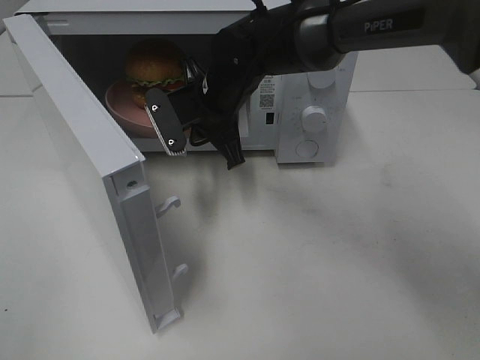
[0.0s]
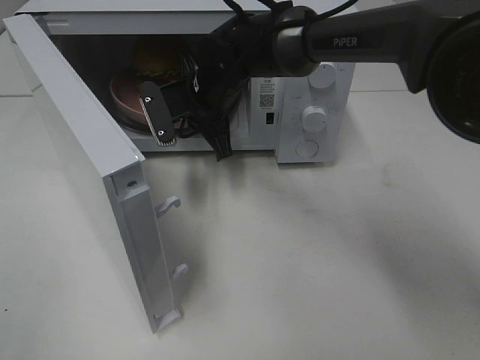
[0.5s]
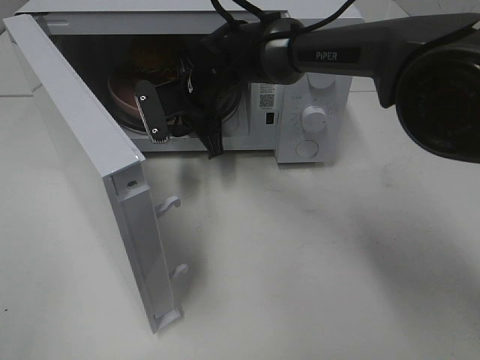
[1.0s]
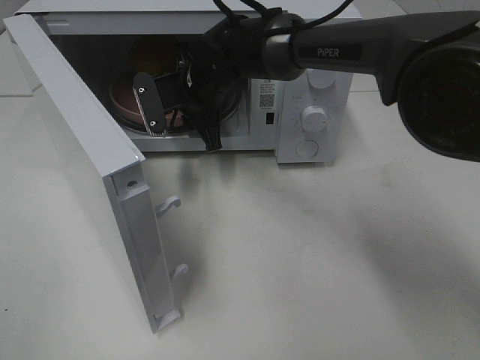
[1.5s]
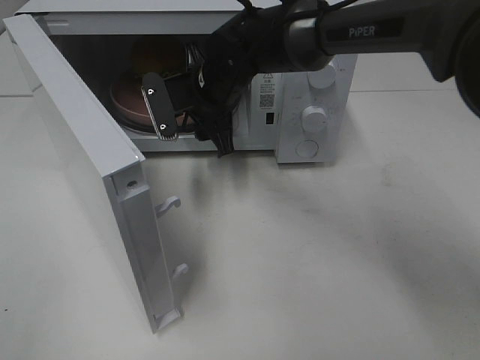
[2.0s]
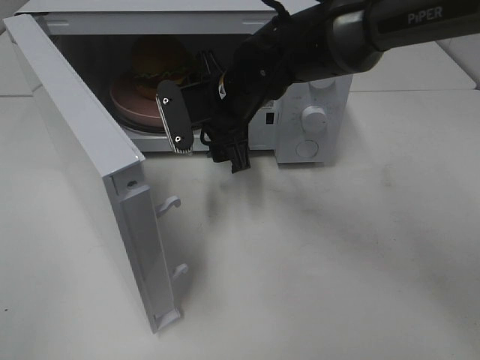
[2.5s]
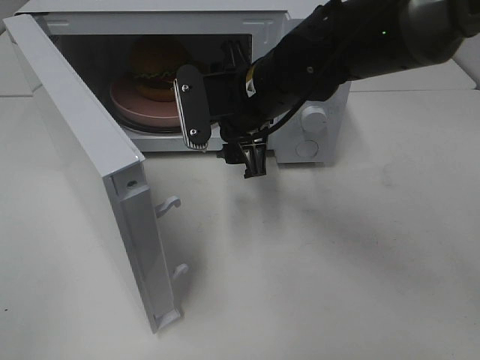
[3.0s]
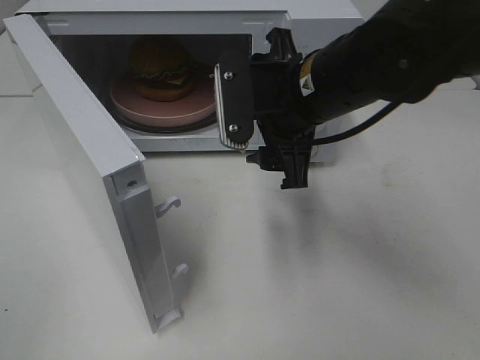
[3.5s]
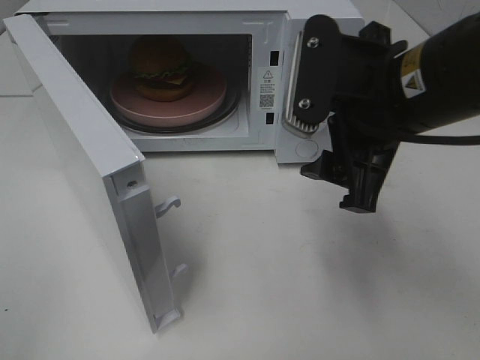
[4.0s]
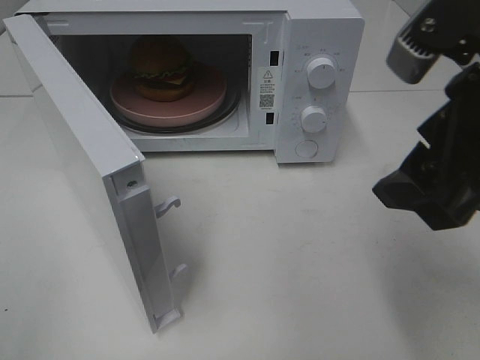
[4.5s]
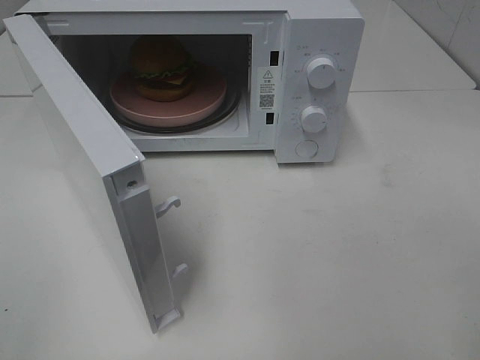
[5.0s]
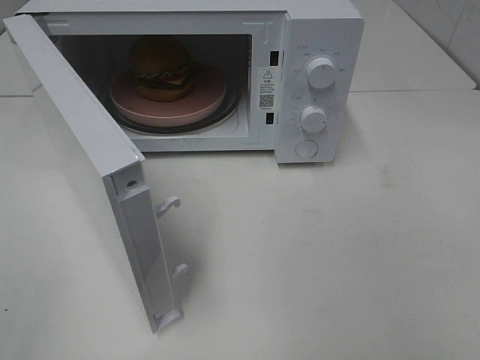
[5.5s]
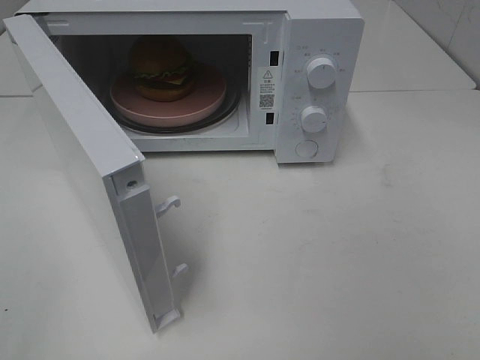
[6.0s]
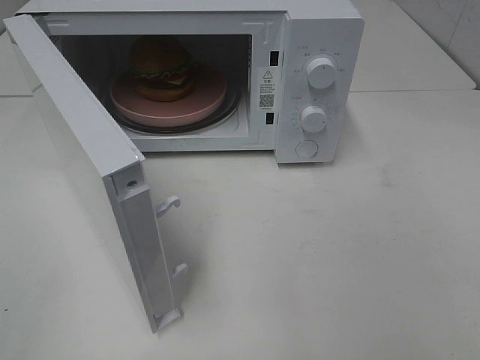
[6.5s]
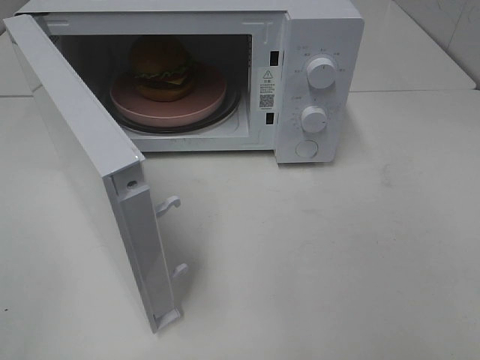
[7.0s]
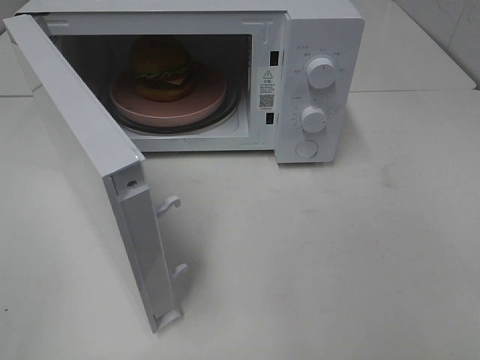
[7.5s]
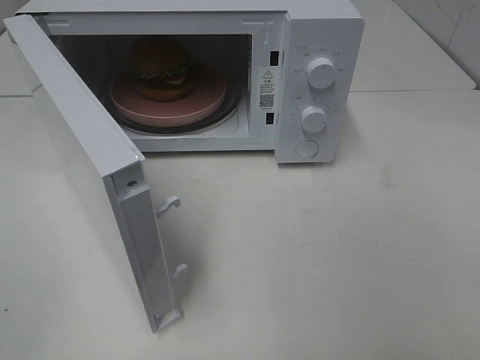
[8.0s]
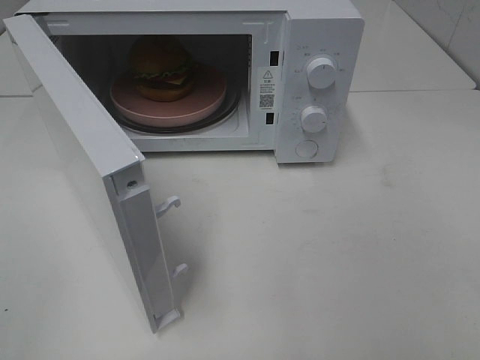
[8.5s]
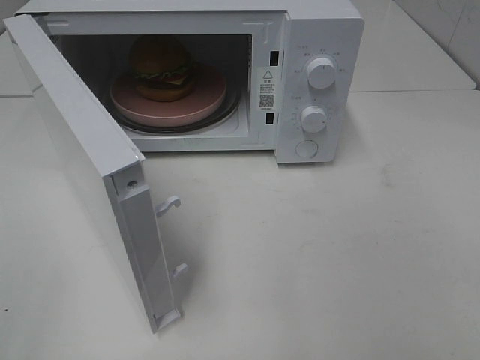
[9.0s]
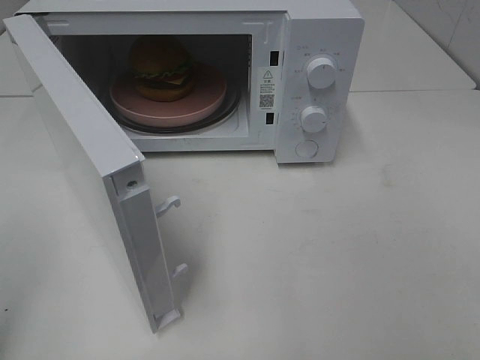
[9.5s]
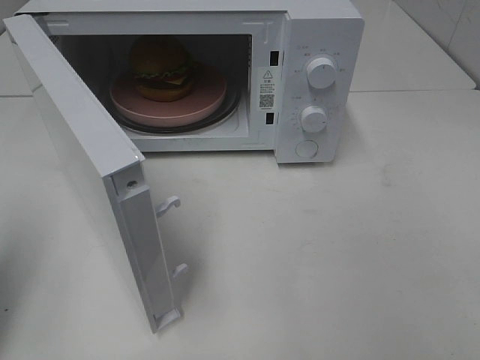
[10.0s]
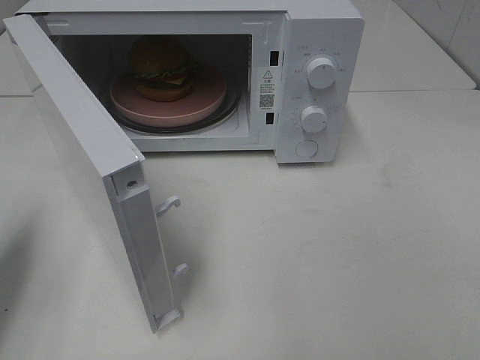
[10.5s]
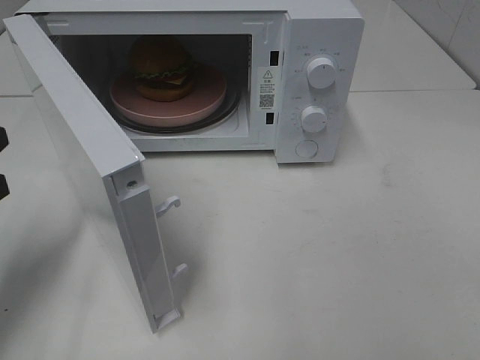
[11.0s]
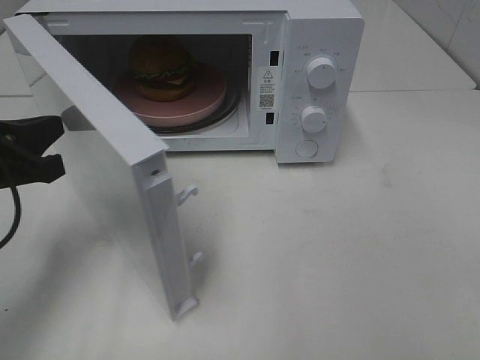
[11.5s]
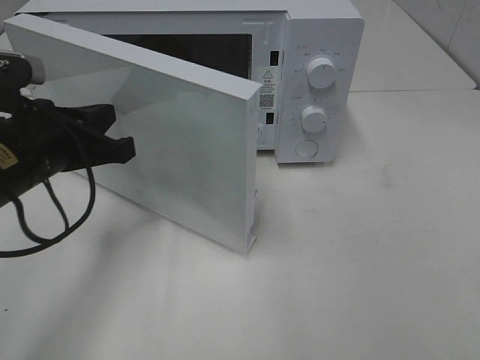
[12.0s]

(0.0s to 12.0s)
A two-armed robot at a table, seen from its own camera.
Task of the whole recording: Heat the burger.
Step, 0.0s - 2.0s: Right hand: place the plate in the microwave.
0.0s - 2.0s: The right gripper opens up.
2.0s - 4.0s: The right gripper travels backward, to the right and upward by approximately 25 cm.
4.0s - 6.0s: The right gripper moves backward and to the right, approximately 30 cm.
8.0s - 10.0s: The left gripper shifts about 15 cm forward, and closes.
10.0s - 12.0s: The left gripper is displaced to the right, forward and downward by about 20 cm.

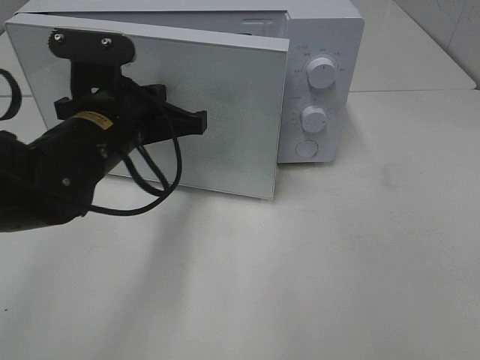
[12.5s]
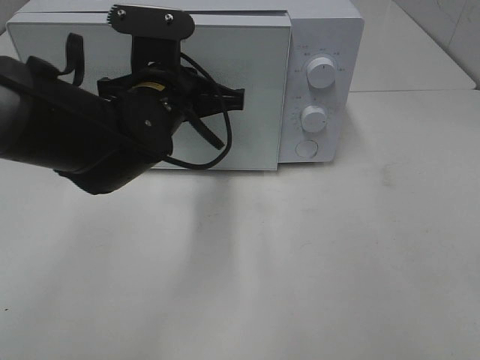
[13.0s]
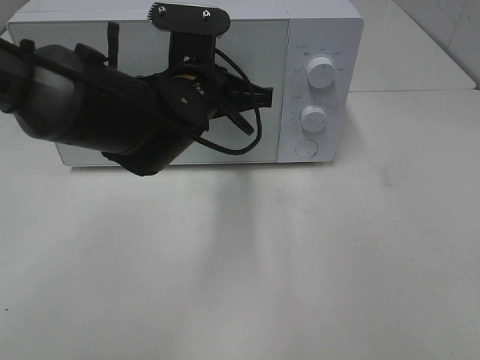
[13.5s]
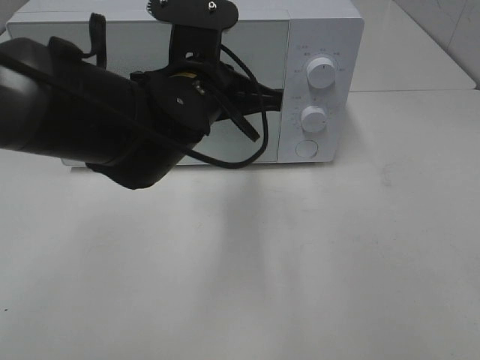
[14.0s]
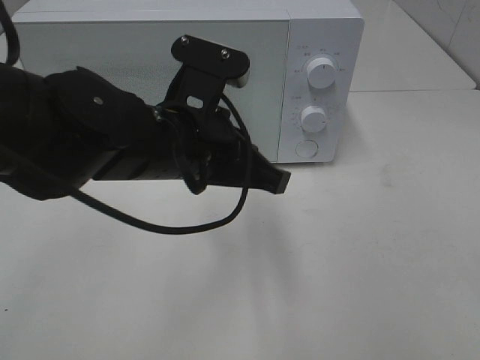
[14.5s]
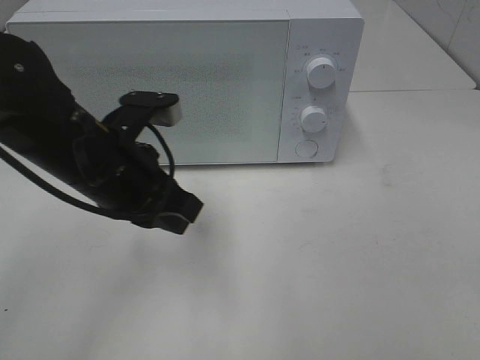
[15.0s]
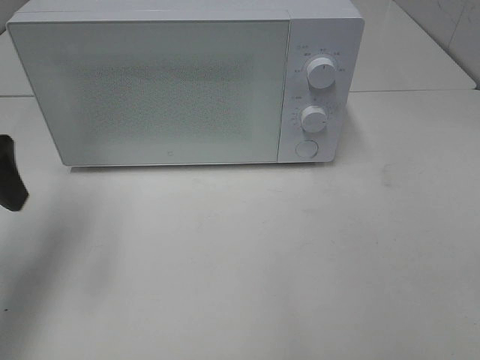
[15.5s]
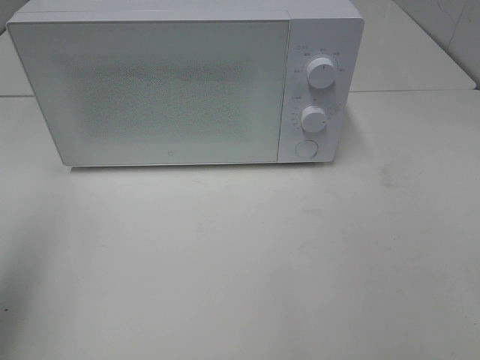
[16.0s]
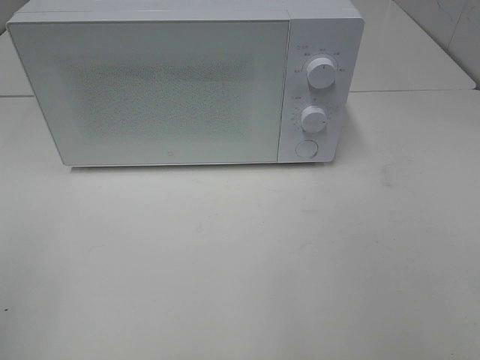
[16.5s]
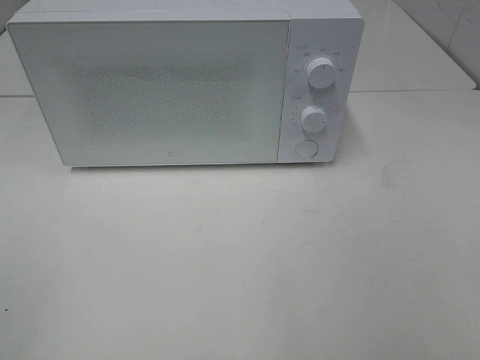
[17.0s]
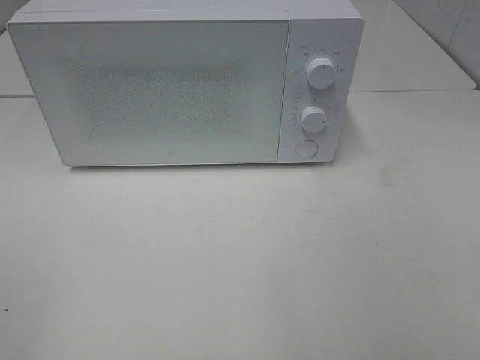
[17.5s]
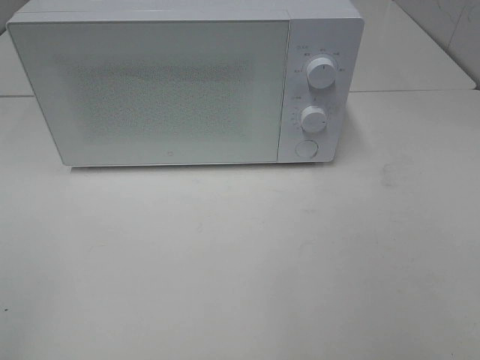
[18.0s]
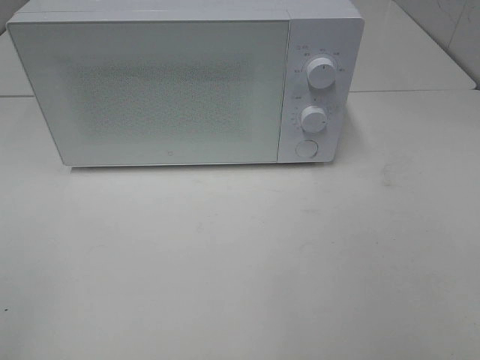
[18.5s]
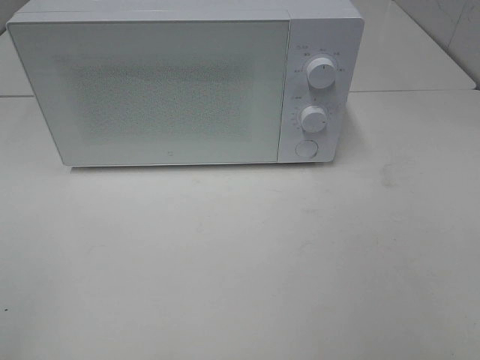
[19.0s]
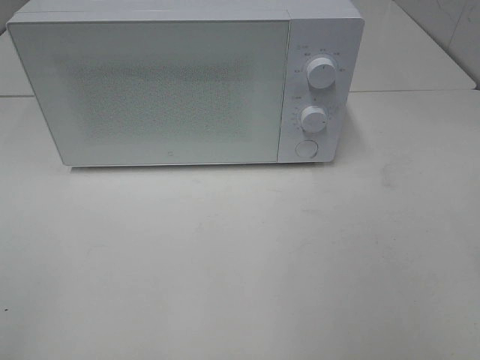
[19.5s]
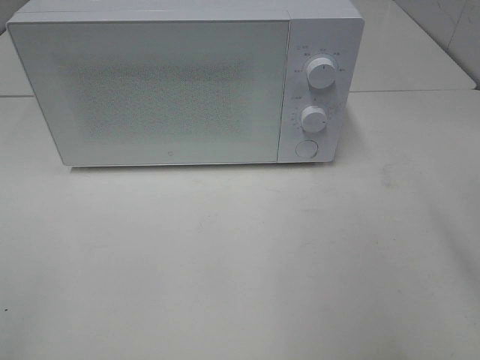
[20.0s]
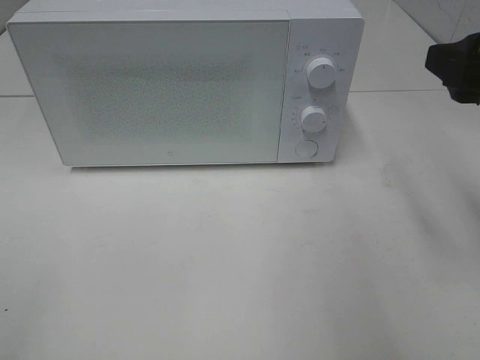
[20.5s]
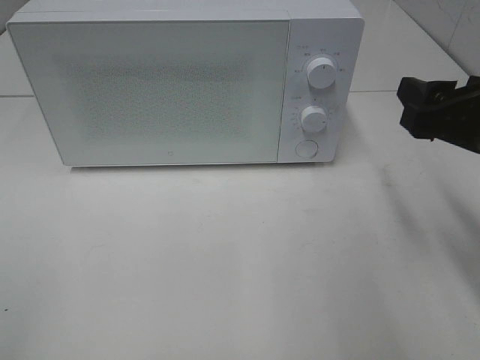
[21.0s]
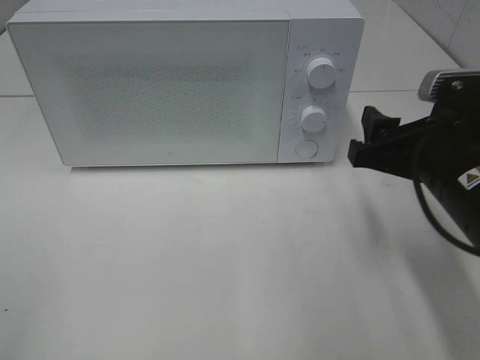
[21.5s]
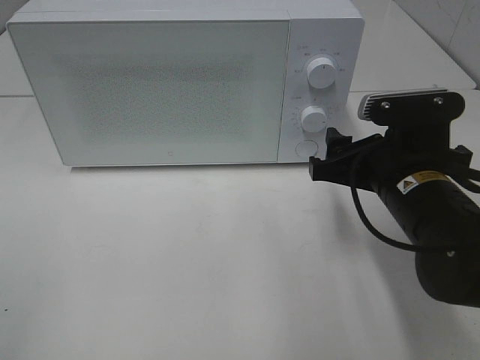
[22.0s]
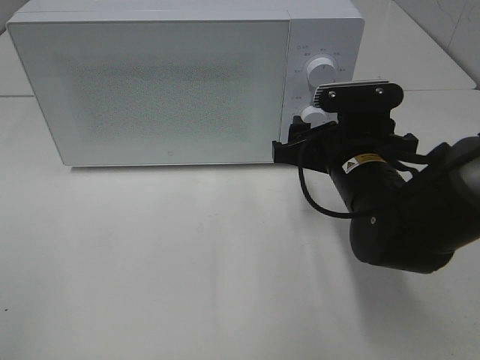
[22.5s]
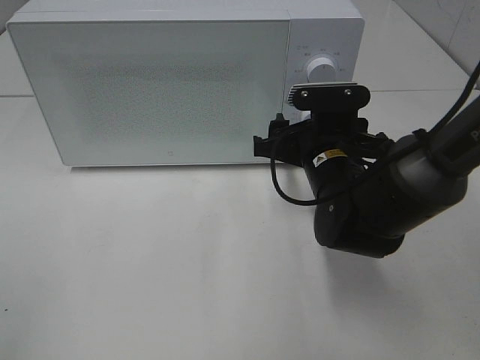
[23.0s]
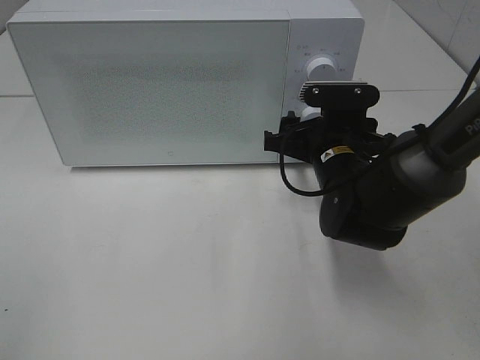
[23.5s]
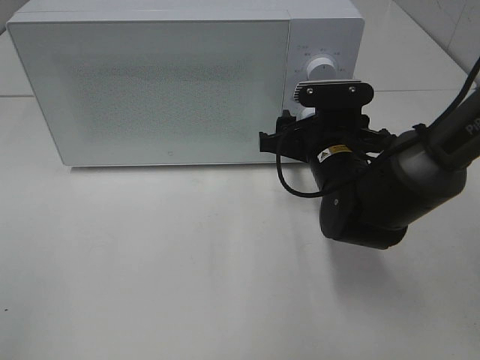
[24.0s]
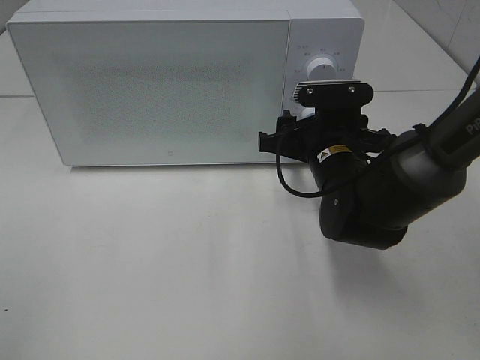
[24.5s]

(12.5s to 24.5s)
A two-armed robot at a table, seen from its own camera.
Task of the whole recording: Heat the burger.
12.5s - 14.5s: The left gripper goes approximately 5 cm to the right.
14.5s - 16.5s: The left gripper travels to the left and backward by approximately 35 cm, and opens.
18.5s - 20.5s: The right gripper travels forward by roughly 20 cm.
20.5s - 22.5s: The right gripper moves downward, to the left and forward, roughly 20 cm.
22.5s - 24.5s: There are only small adjustments of the grippers.

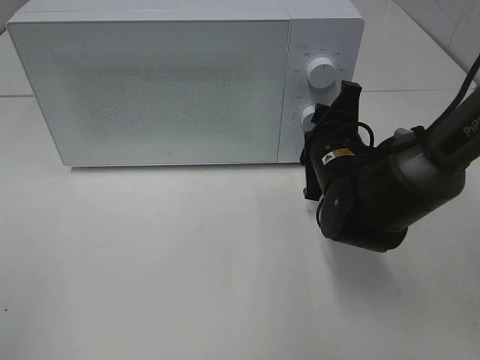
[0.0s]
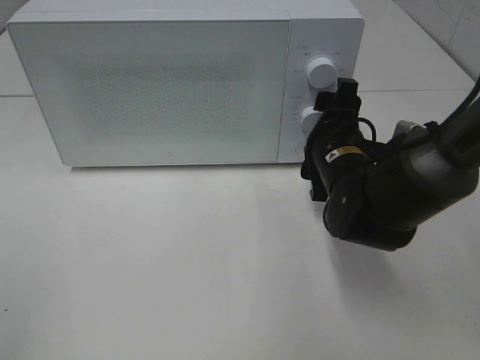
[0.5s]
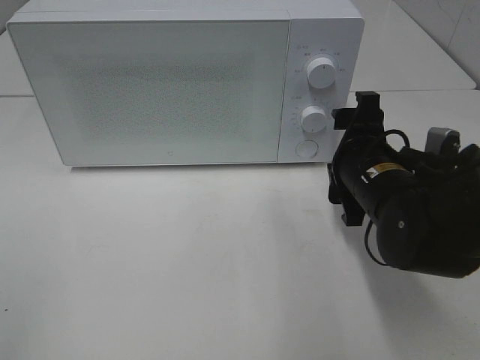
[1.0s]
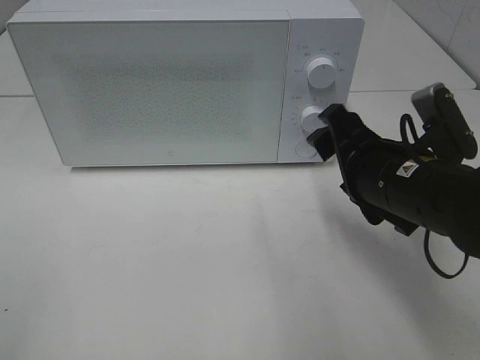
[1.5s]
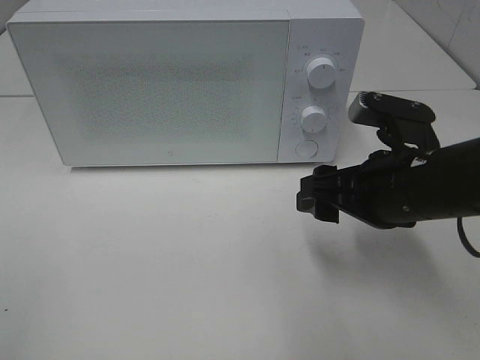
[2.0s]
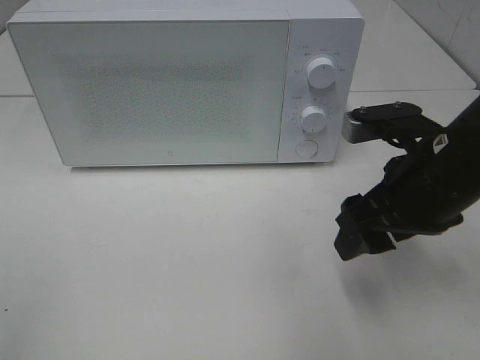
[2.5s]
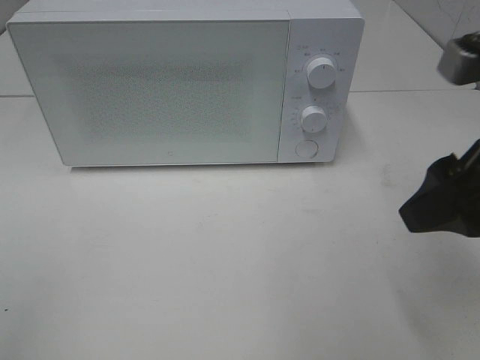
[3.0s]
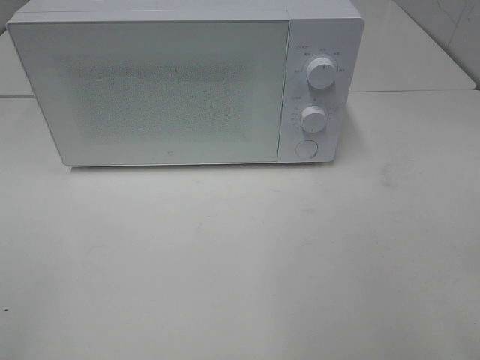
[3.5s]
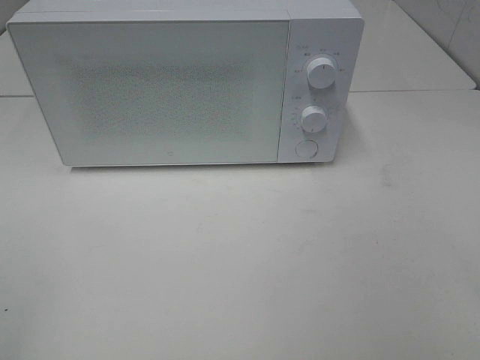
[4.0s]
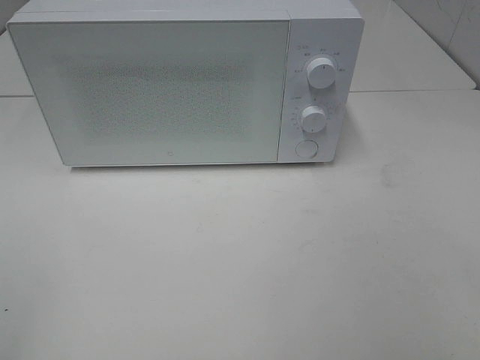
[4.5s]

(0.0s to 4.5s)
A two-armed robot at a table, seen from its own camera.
Task of the whole recording: Heat the burger.
0.0s - 2.0s: The right gripper travels backward and upward by some 10 cm.
2.0s - 4.5s: The right gripper travels backward, to the right and upward by roughly 30 cm.
